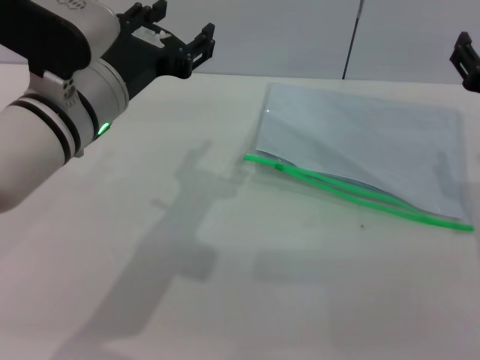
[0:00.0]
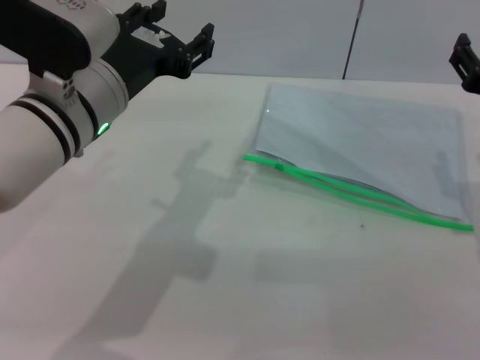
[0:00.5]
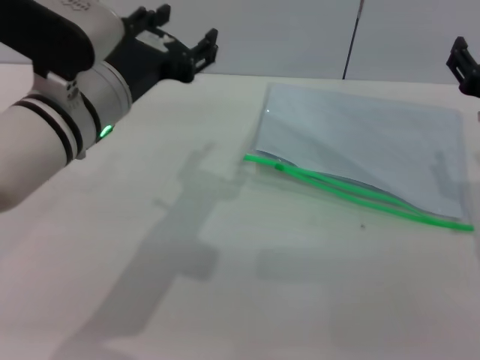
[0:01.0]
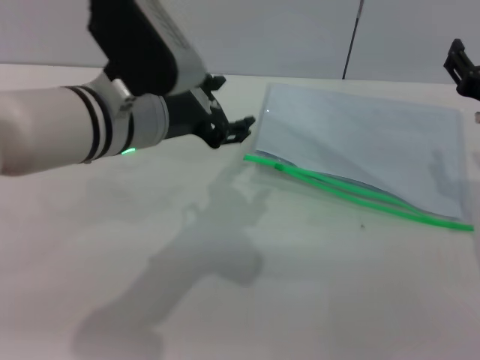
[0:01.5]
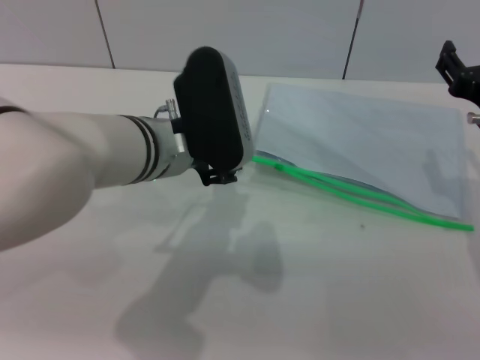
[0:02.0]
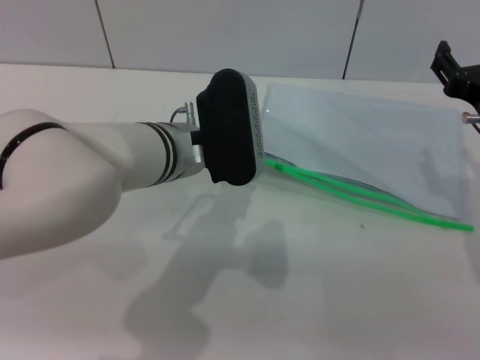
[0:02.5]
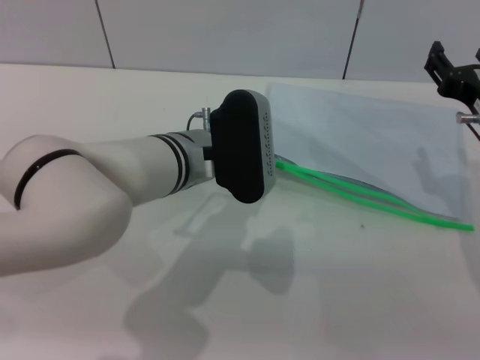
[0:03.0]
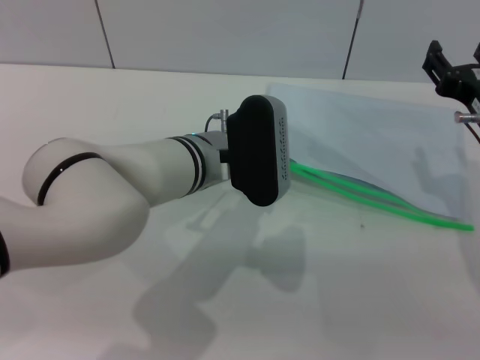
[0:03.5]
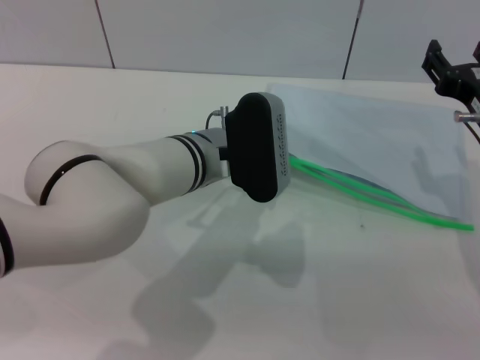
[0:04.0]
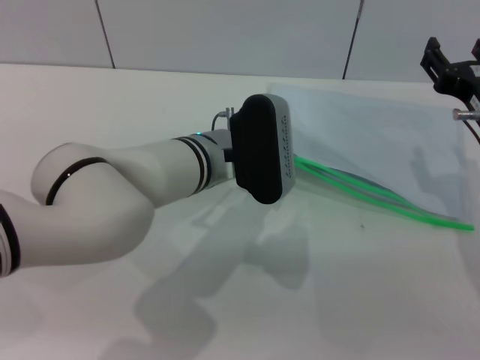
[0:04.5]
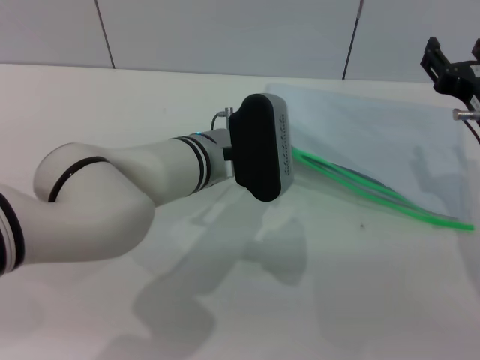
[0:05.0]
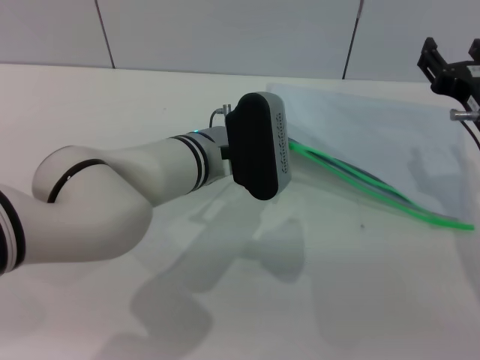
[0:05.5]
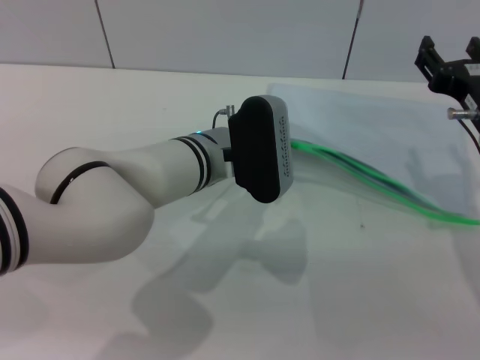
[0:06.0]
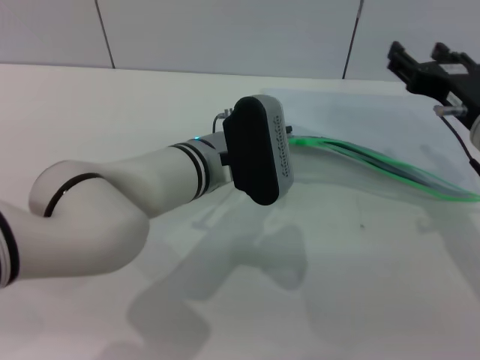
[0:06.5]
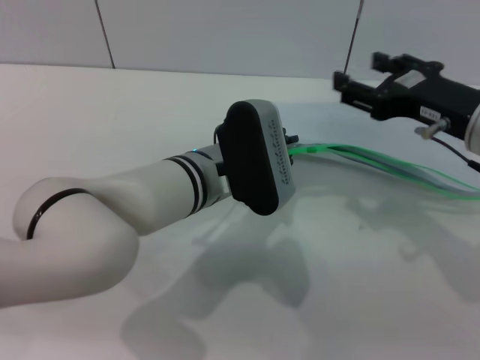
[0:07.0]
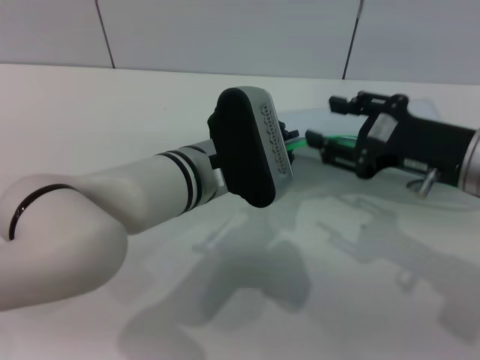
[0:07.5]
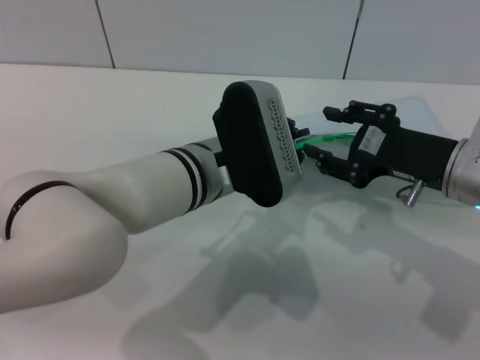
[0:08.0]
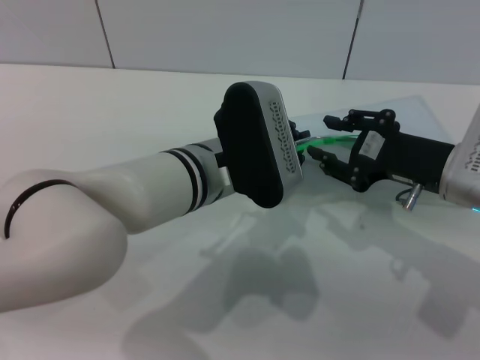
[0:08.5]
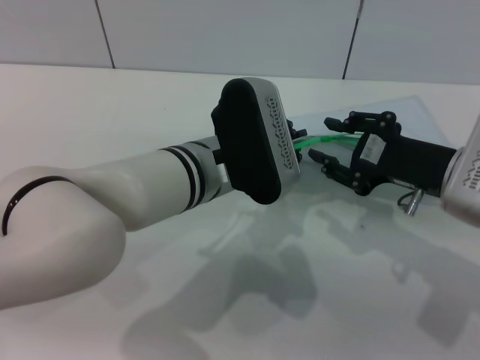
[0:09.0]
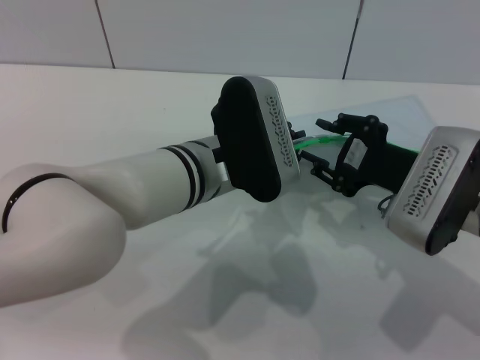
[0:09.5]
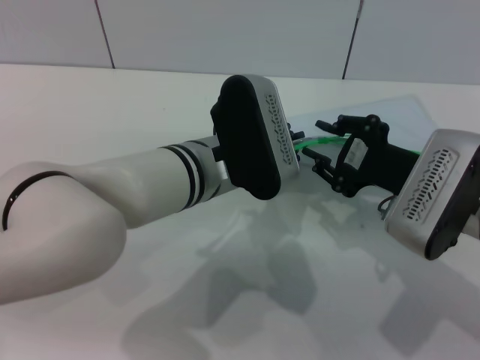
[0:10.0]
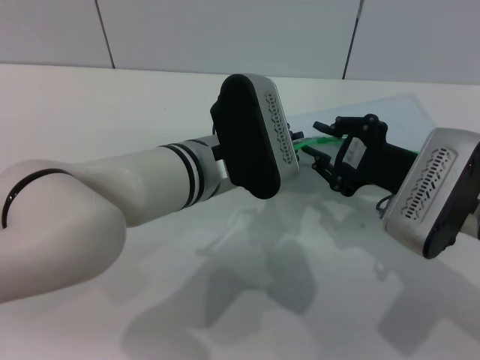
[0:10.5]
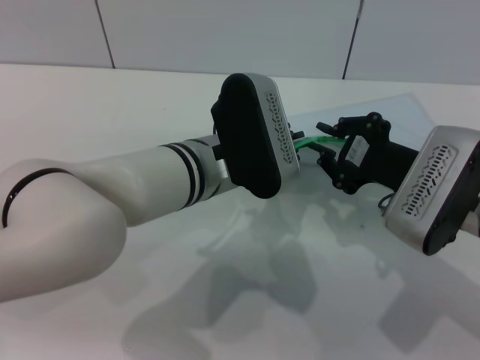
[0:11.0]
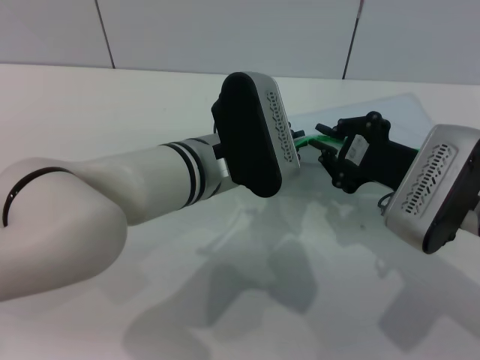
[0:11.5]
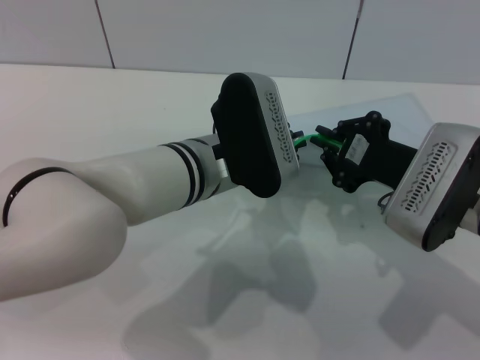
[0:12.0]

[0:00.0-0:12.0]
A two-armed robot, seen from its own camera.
Step, 0:00.0 to 0:07.0: Pick up the transparent plastic bag with the left gripper.
0:00.0 to 0:02.0: The left gripper shifts roughly 5 cm to the right.
0:02.0 to 0:04.0: The left gripper is displaced downward by about 5 cm.
0:04.0 to 0:06.0: The left gripper closes its fingers.
0:06.0 to 0:08.0: The left gripper shifts by roughly 5 cm.
0:08.0 to 0:10.0: The grippers move only a little.
0:10.0 to 0:12.0: The right gripper closes.

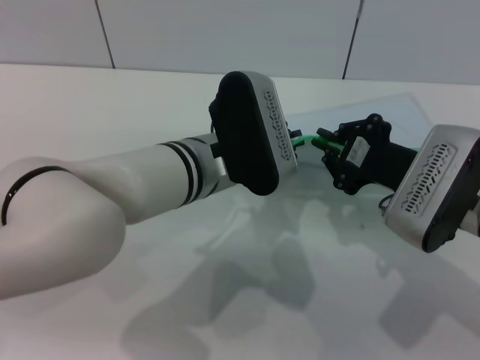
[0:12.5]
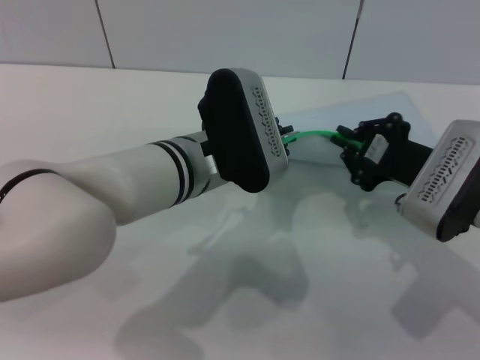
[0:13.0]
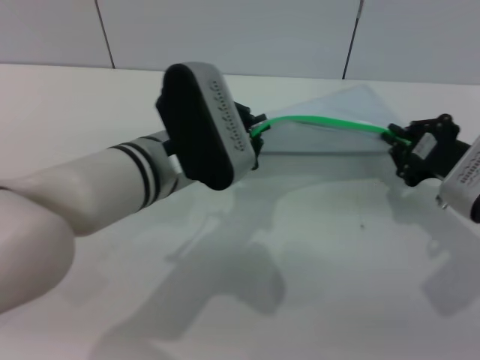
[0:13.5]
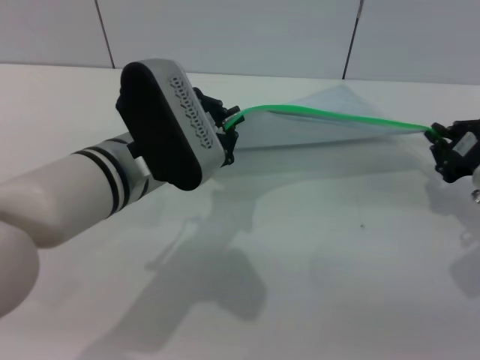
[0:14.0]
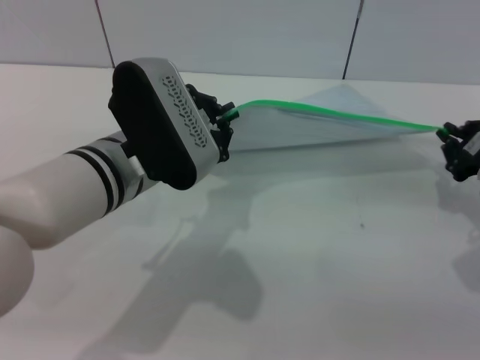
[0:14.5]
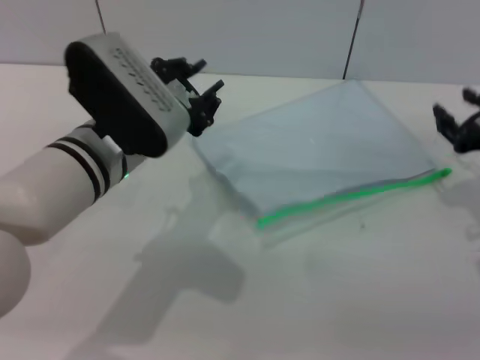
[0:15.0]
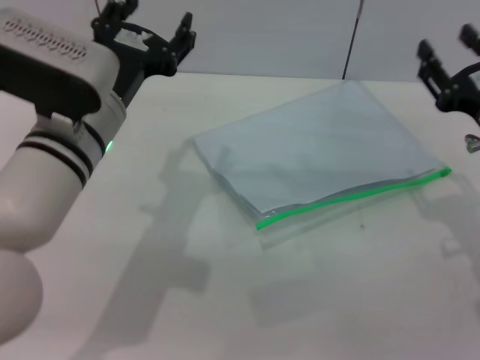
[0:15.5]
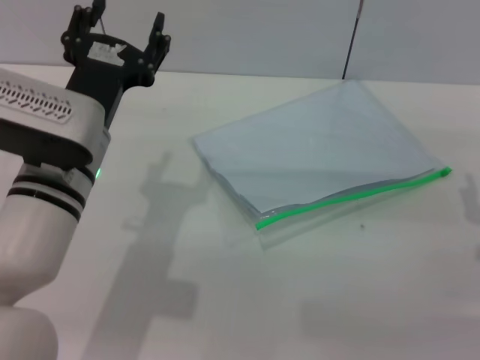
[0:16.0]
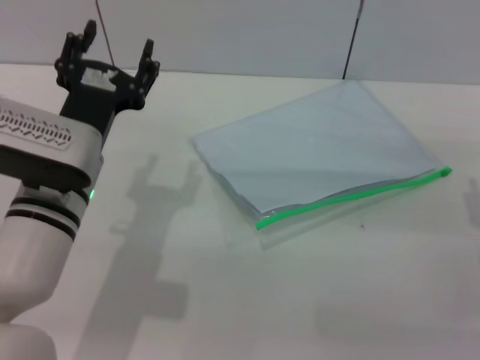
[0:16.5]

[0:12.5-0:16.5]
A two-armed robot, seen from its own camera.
Step, 0:15.0 to 0:15.5: Place the transparent plastic bag.
0:12.5 to 0:14.5: The right gripper is displaced to the right by roughly 10 cm. Meanwhile the left gripper shifts some 5 cm to the left.
0:14.5 to 0:16.5: The left gripper moves roughly 5 cm, and opens, while the right gripper heads backward, covering roughly 5 cm, and opens its fingers.
